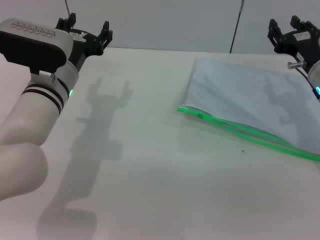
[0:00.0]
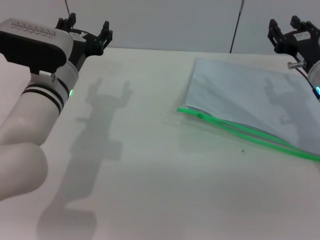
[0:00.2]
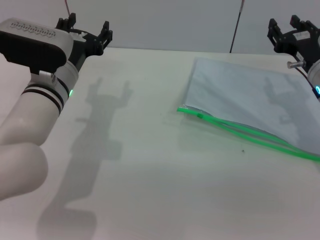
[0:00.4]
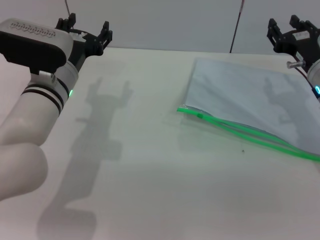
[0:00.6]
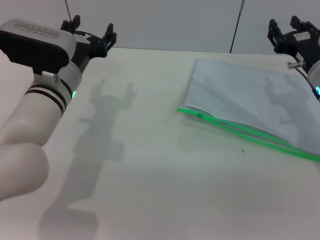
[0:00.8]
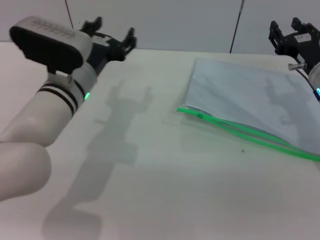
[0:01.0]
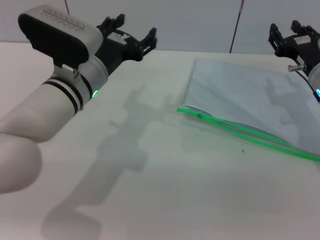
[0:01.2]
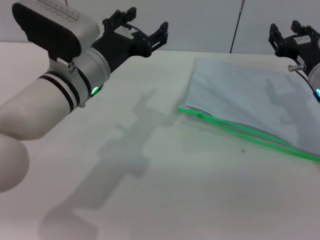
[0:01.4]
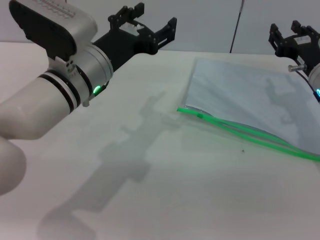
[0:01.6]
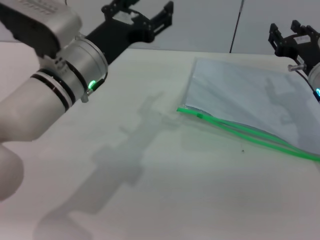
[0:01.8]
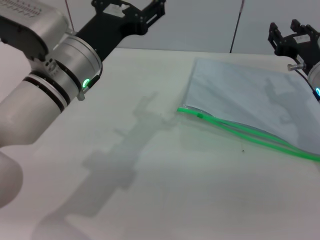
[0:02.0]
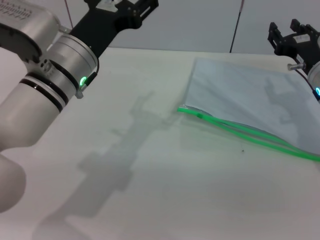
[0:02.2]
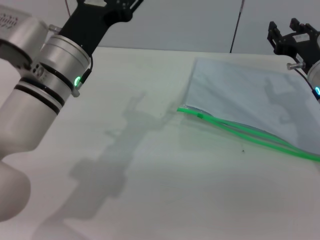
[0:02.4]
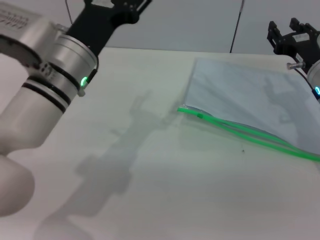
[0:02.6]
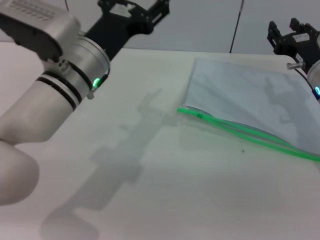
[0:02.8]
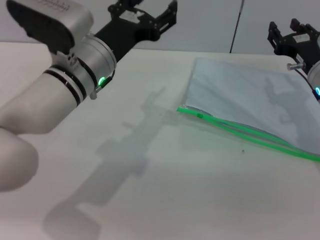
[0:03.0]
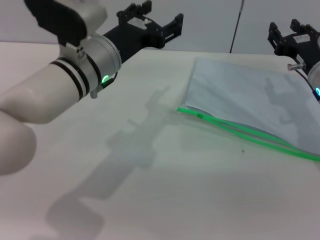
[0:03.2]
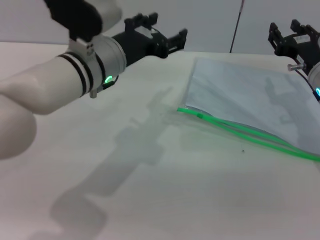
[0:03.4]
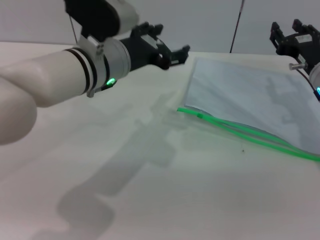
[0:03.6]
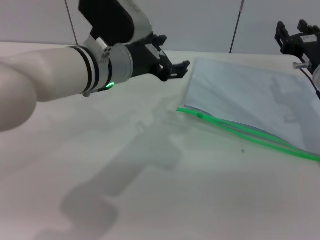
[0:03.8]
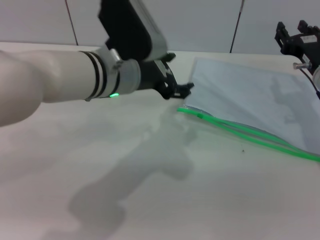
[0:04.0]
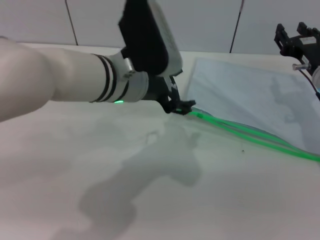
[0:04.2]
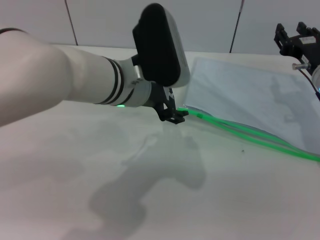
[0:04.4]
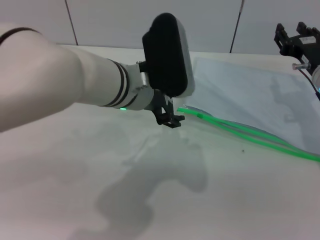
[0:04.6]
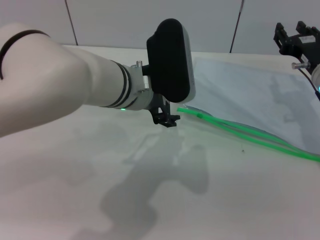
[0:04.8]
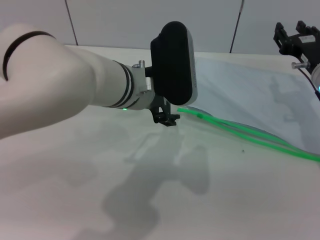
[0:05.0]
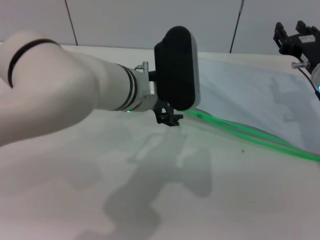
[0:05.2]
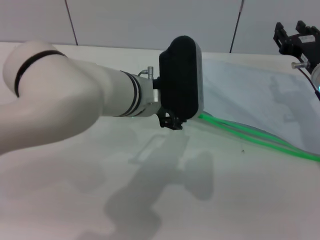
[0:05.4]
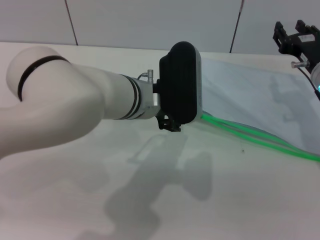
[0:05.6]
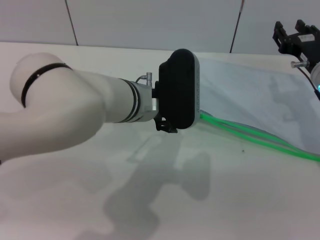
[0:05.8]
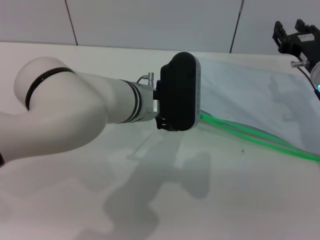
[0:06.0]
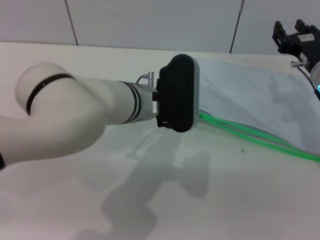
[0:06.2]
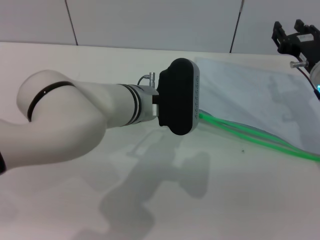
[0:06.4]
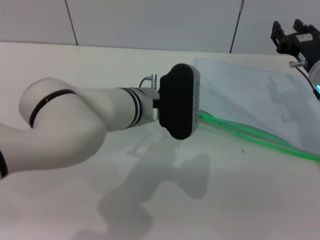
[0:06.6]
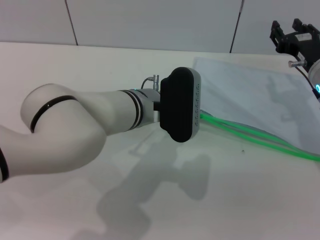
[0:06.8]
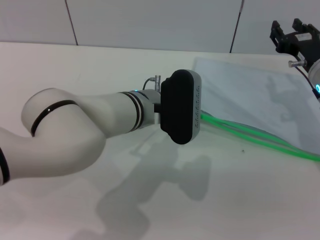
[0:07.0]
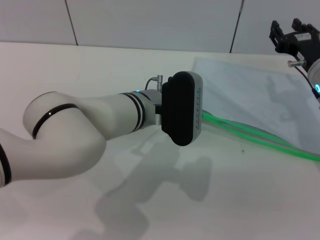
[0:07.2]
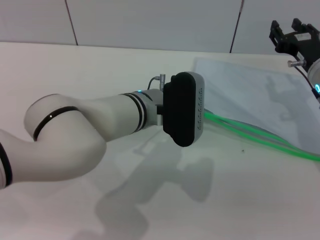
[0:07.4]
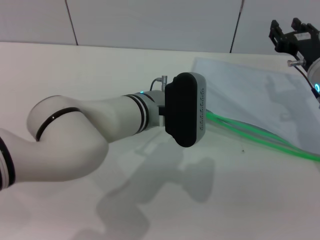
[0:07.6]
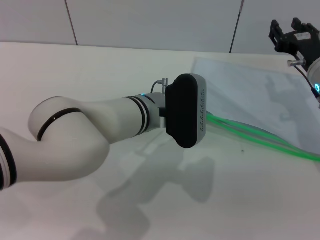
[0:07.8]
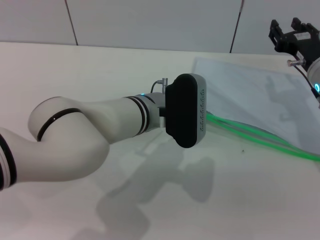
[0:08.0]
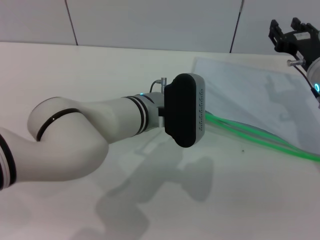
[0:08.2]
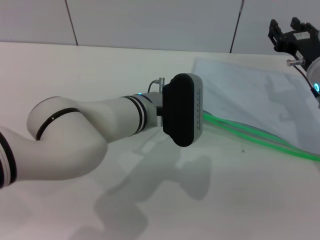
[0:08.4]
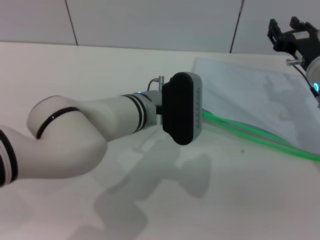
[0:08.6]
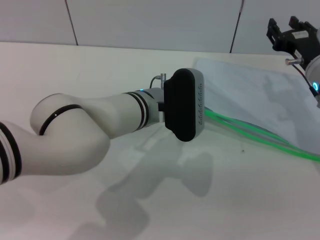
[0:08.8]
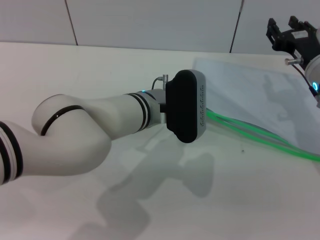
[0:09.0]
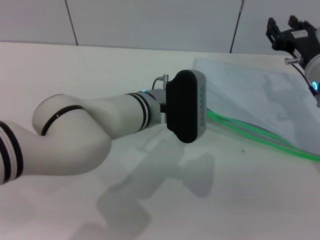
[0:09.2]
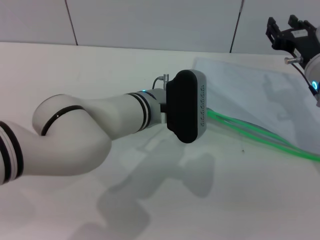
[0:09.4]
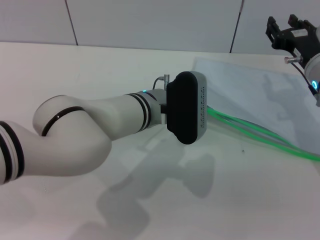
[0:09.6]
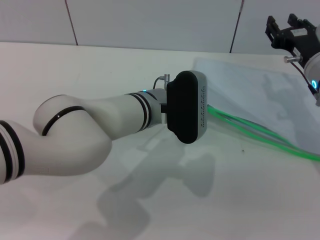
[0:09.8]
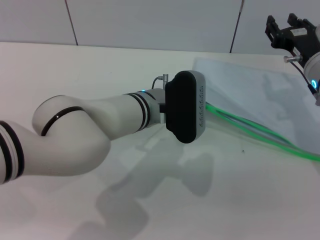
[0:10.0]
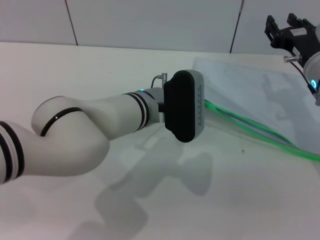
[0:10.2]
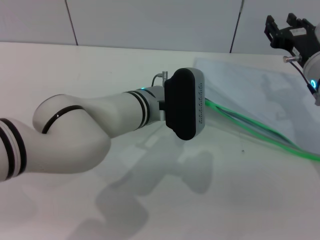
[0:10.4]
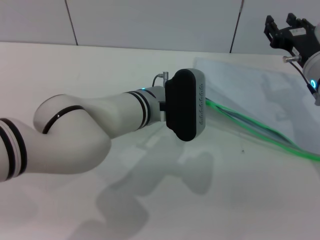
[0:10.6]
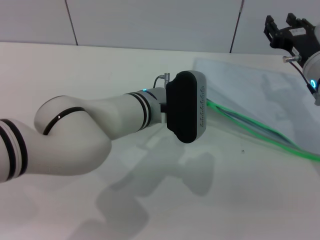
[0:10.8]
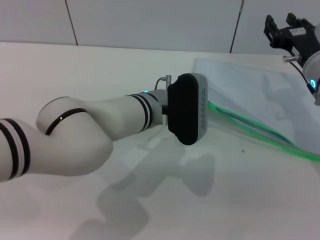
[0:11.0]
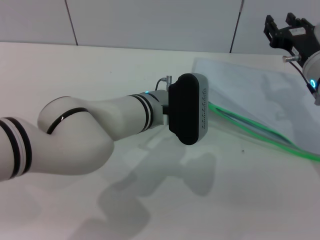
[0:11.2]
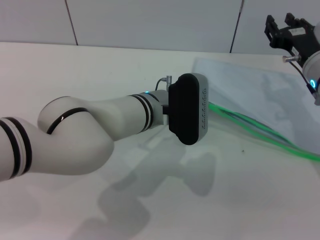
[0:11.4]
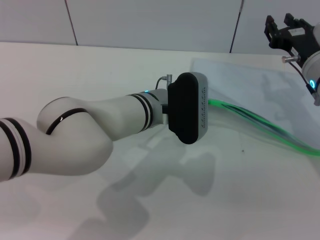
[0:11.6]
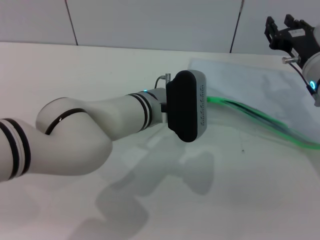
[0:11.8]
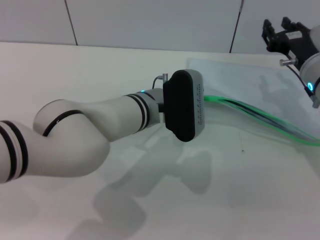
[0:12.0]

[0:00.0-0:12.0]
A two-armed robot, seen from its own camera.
0:00.0 to 0:01.6: The left gripper moves roughly 5 cm.
0:03.0 to 0:04.4: The left gripper shifts by about 5 cm.
0:04.4 to 0:06.0: The grippers stay close to where they were, moving slightly.
0:06.0 to 0:07.6: The grippers stay close to where they were, moving slightly.
0:07.6 to 0:09.0: Neither gripper changes place.
0:09.0 to 0:10.4: The left gripper closes up.
0:10.4 to 0:12.0: The left gripper closes.

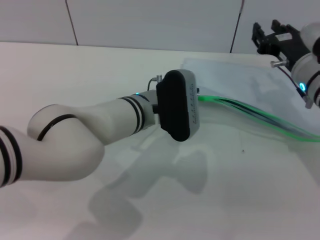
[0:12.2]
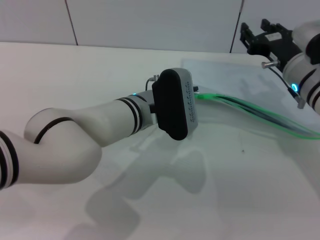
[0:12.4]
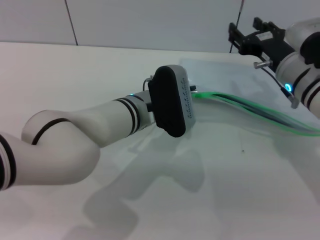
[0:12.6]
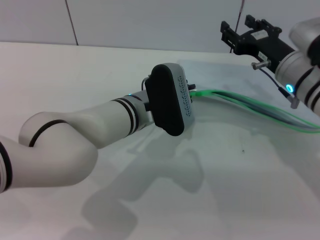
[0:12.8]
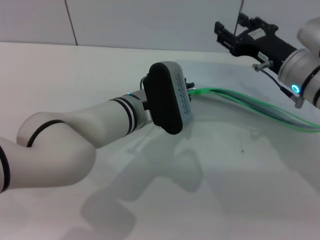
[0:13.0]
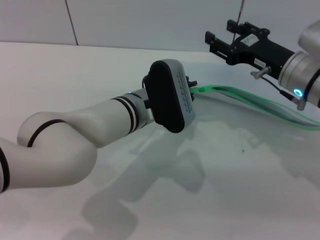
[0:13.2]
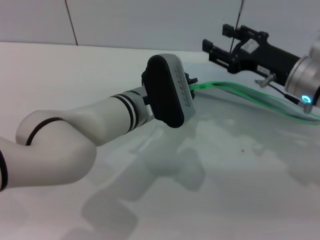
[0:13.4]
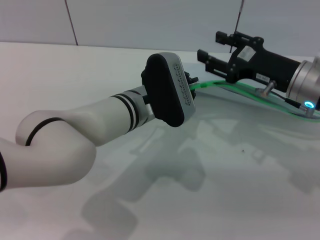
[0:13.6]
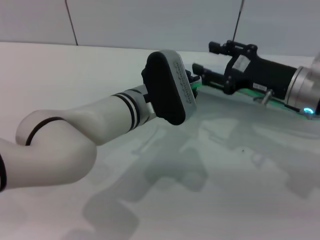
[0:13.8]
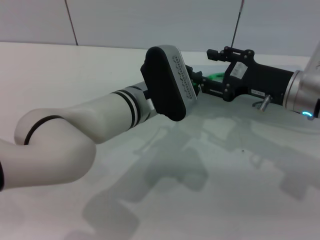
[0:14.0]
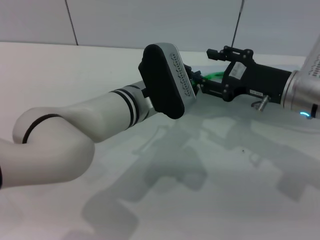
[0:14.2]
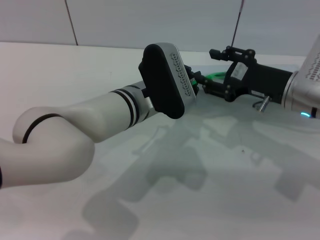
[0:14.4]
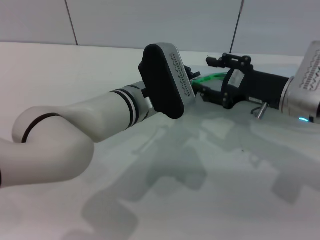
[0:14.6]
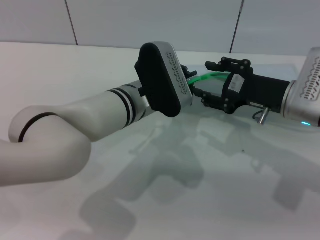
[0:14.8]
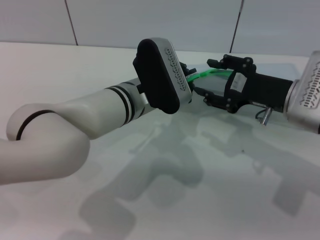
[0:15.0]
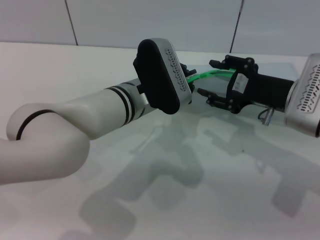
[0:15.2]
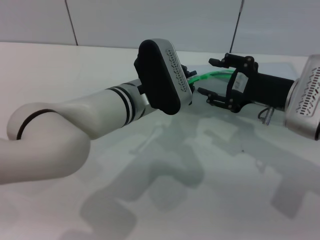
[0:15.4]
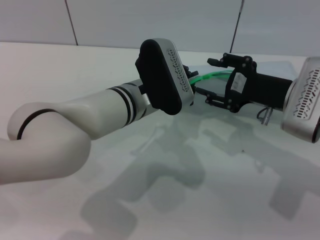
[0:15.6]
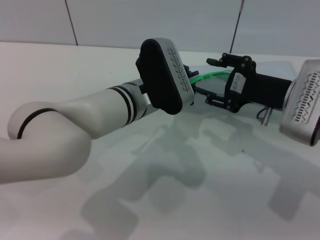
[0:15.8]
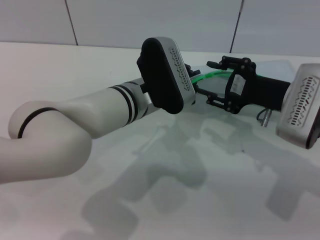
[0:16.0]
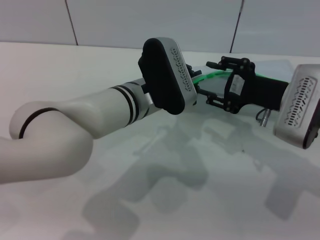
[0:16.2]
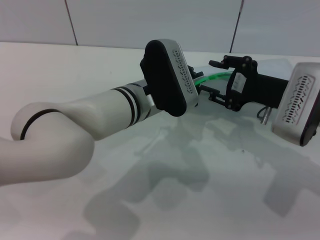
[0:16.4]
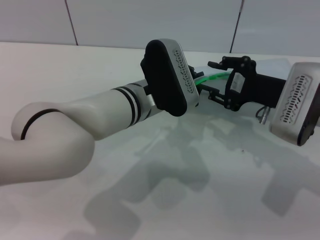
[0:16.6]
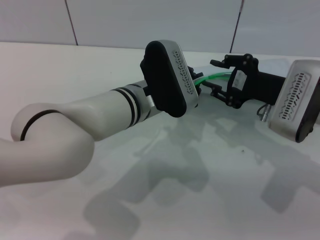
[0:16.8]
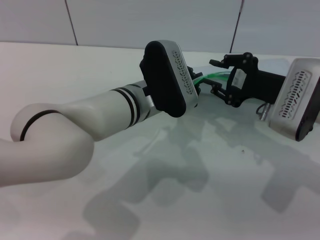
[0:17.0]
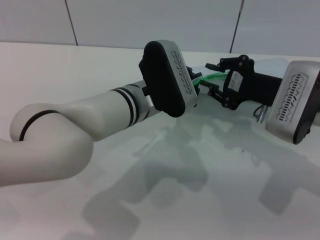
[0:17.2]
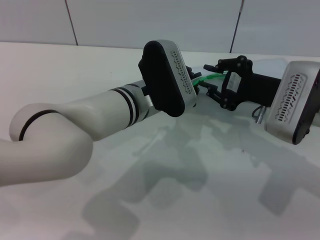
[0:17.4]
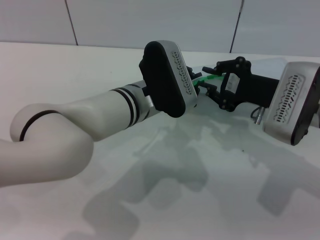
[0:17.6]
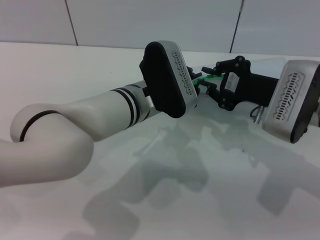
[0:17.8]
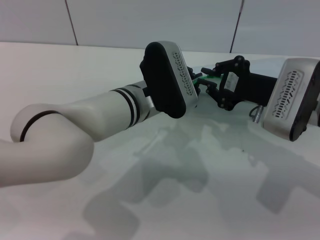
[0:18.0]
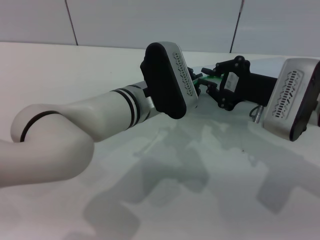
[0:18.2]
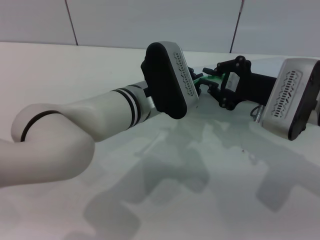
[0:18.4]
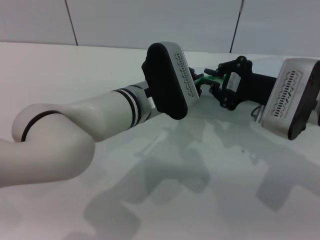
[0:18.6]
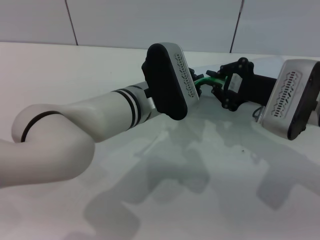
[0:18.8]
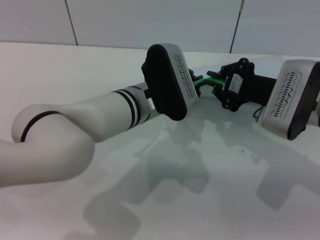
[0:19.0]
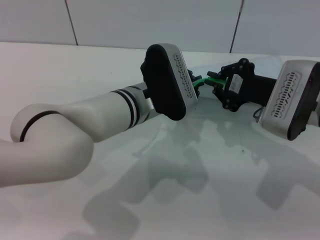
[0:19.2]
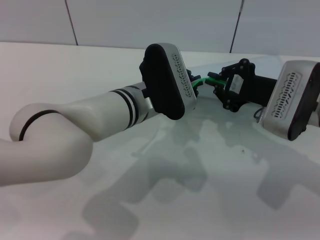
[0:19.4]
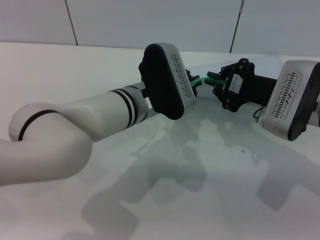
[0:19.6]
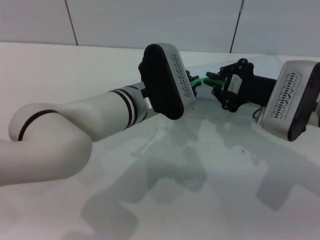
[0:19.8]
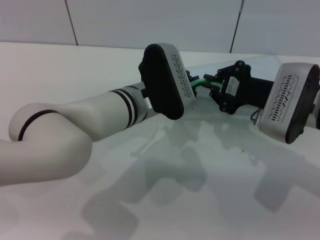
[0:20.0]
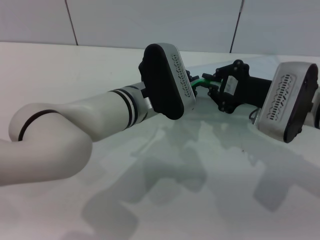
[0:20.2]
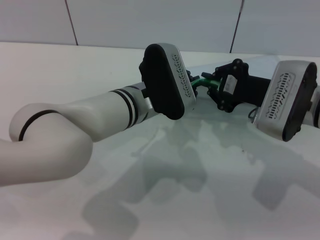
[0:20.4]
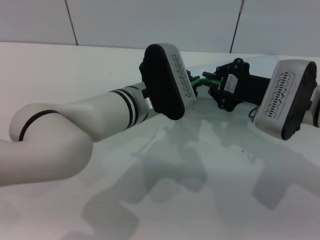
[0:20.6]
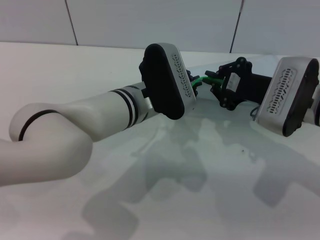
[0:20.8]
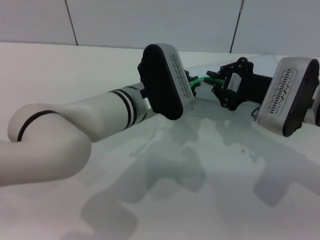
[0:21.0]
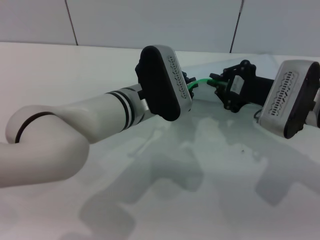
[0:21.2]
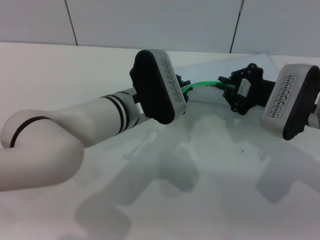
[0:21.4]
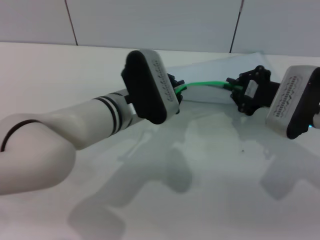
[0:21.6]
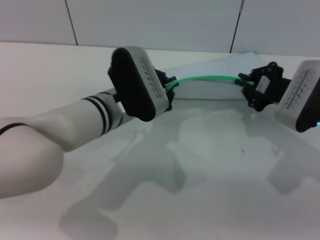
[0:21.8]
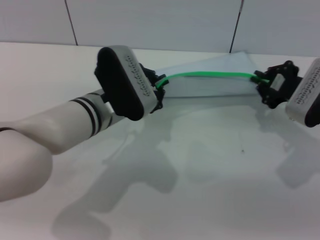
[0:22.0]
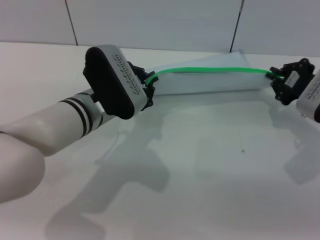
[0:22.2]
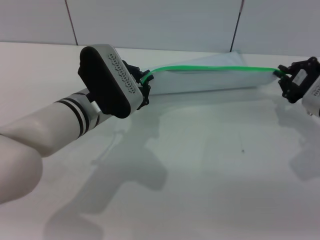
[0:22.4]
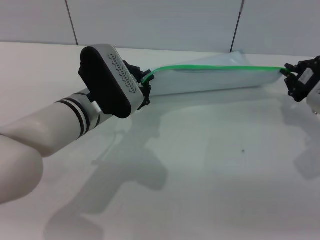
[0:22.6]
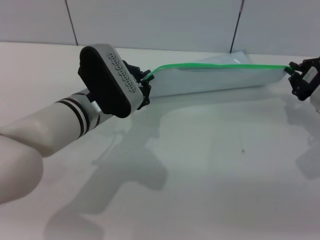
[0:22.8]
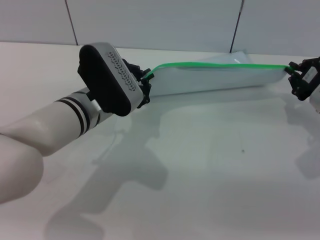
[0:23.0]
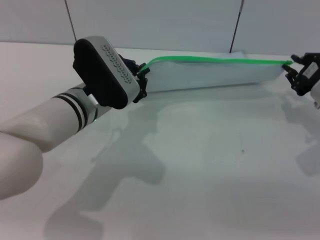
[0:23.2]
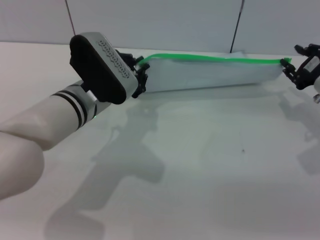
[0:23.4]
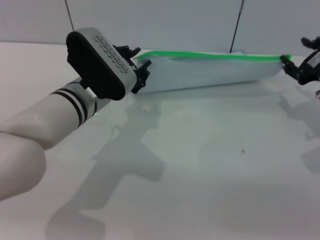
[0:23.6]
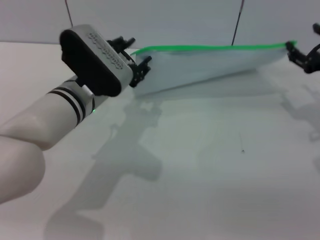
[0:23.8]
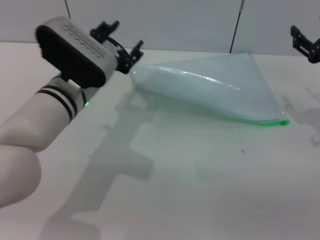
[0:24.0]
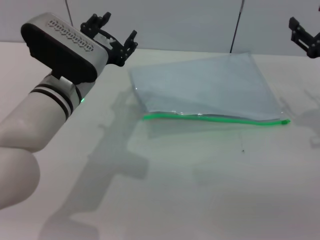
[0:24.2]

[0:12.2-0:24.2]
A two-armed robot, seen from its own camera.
Step, 0:12.4 to 0:23.4: Pulling up the zipper on the transparent plastic bag with the right gripper to close it.
0:15.2 to 0:16.6: The grippers make only small movements.
0:16.6 to 0:18.2: The right gripper closes up.
0:18.2 to 0:19.8: Both grippers stay put.
0:19.8 to 0:21.2: Neither gripper changes place.
0:21.2 to 0:22.6: The right gripper heads to the right, covering some 10 cm. Meanwhile the left gripper is displaced to the left by roughly 5 cm.
0:22.6 to 0:24.2: The right gripper opens up. The left gripper opens its fingers.
